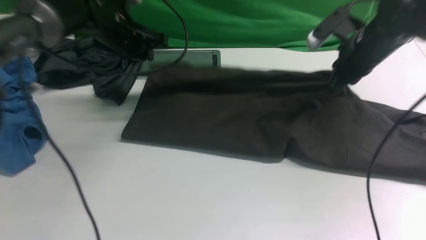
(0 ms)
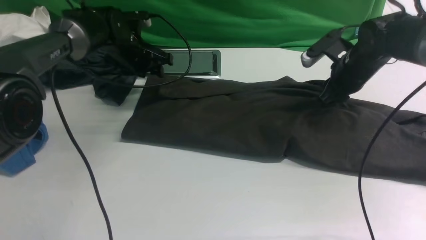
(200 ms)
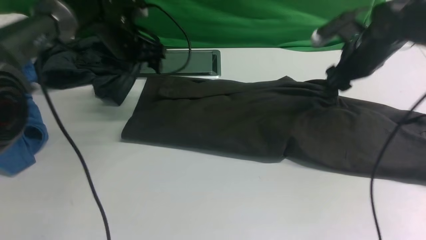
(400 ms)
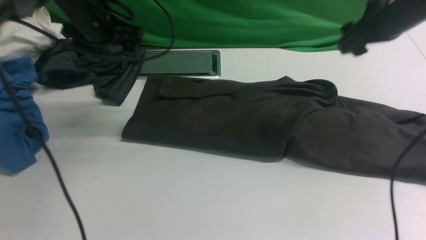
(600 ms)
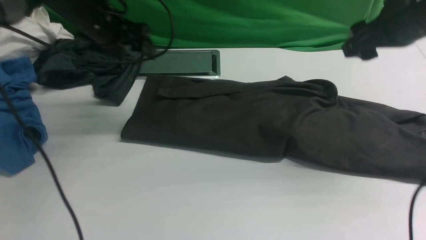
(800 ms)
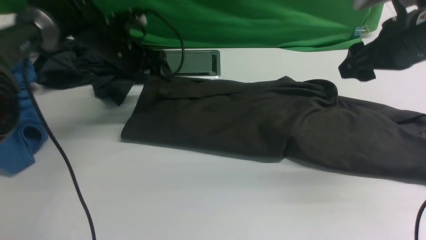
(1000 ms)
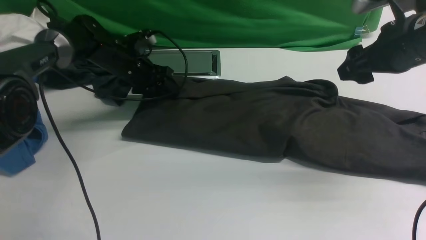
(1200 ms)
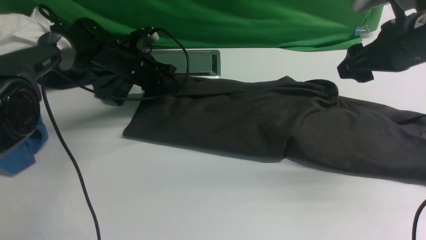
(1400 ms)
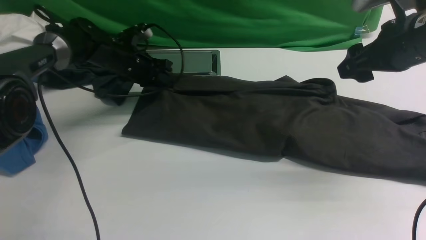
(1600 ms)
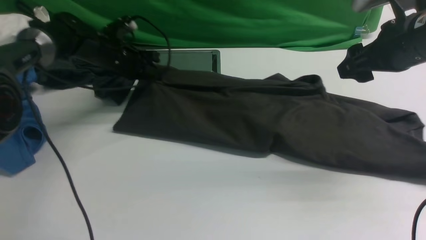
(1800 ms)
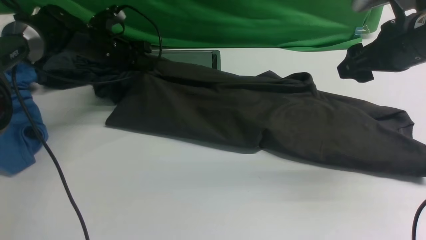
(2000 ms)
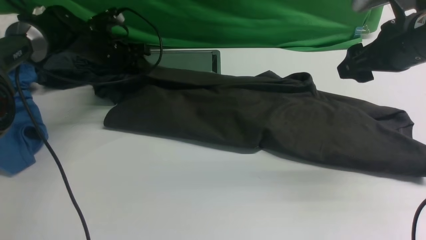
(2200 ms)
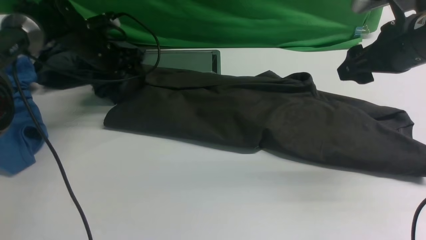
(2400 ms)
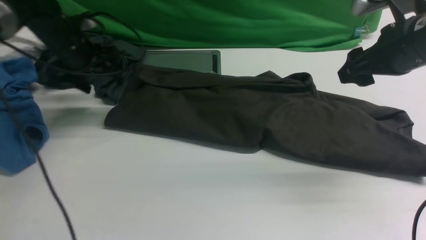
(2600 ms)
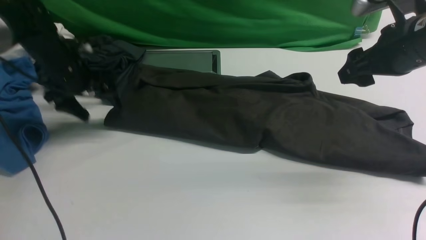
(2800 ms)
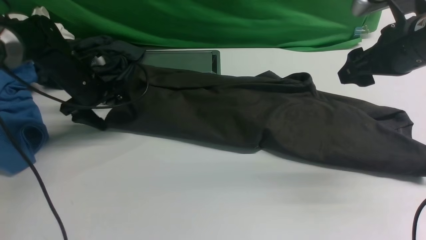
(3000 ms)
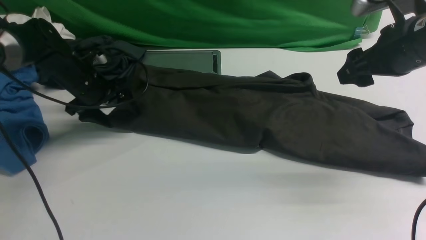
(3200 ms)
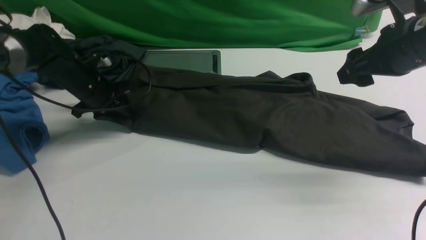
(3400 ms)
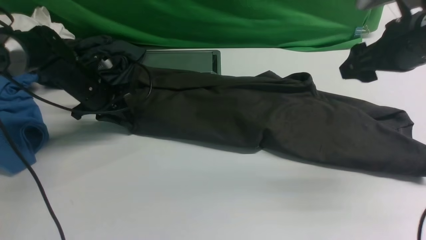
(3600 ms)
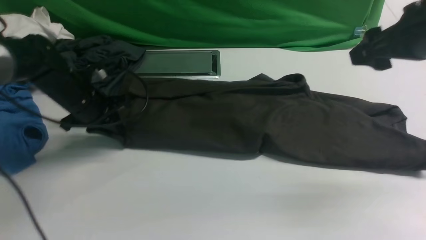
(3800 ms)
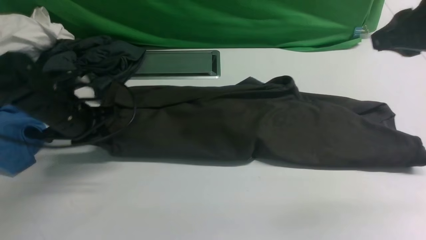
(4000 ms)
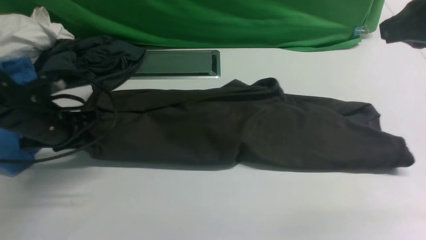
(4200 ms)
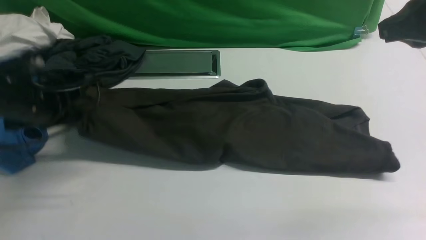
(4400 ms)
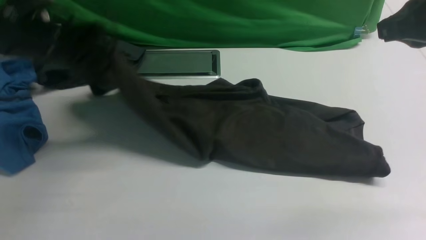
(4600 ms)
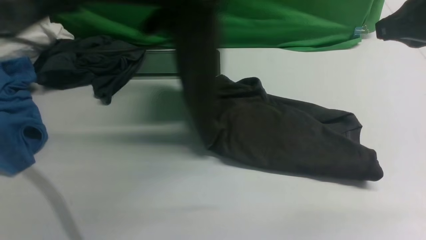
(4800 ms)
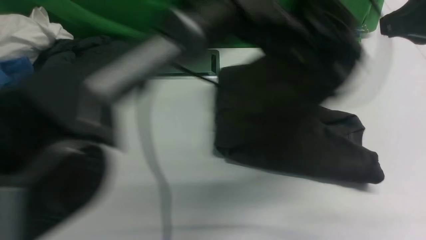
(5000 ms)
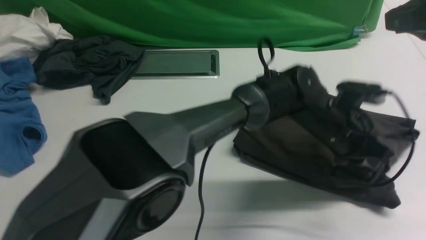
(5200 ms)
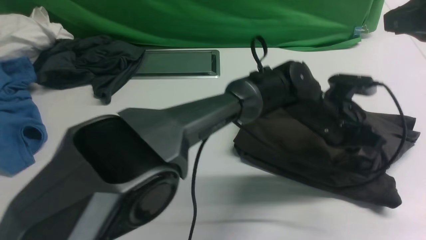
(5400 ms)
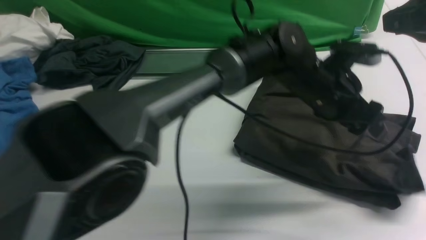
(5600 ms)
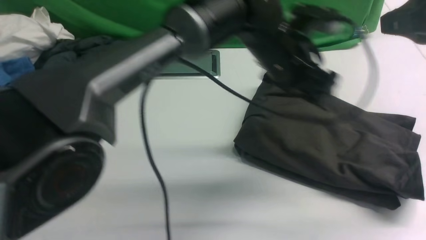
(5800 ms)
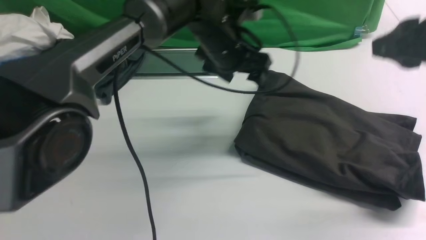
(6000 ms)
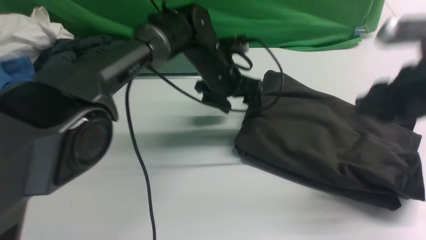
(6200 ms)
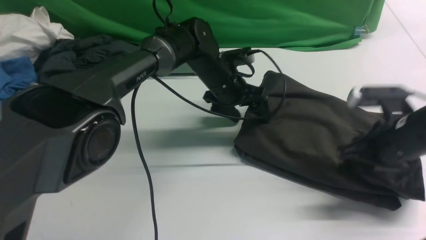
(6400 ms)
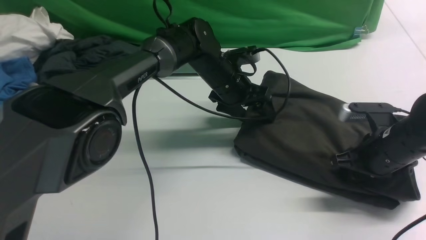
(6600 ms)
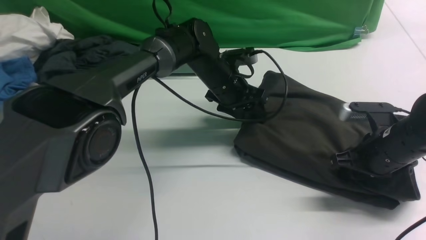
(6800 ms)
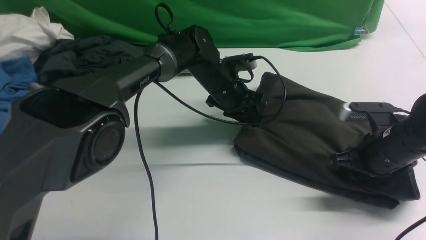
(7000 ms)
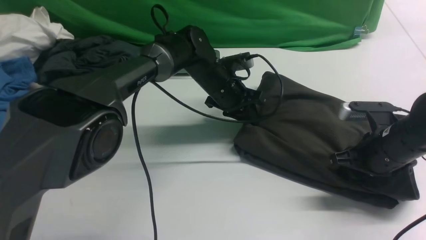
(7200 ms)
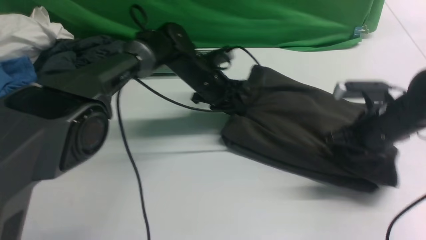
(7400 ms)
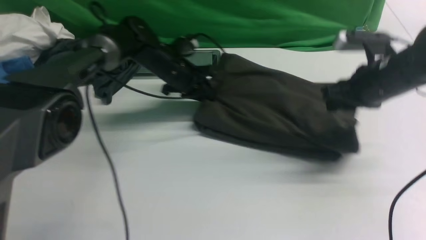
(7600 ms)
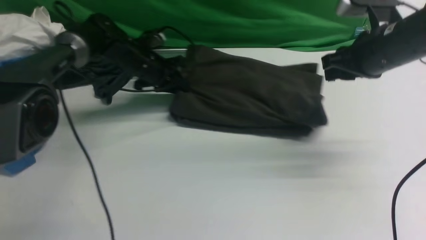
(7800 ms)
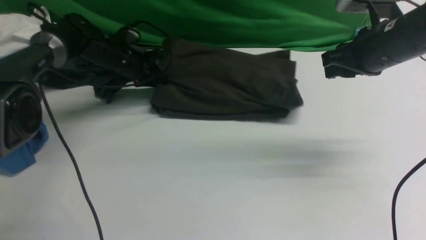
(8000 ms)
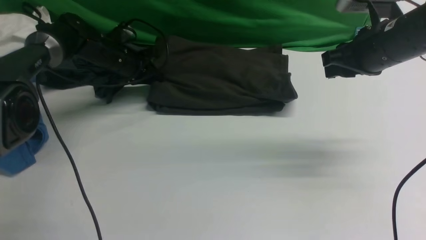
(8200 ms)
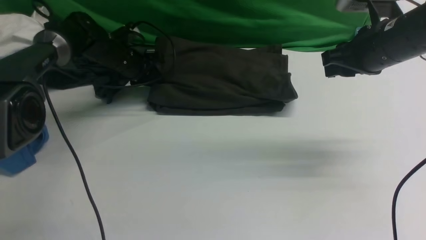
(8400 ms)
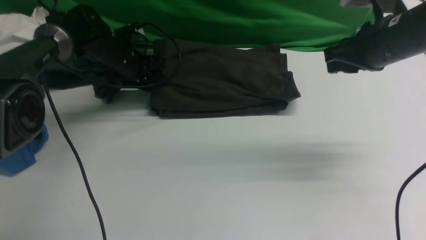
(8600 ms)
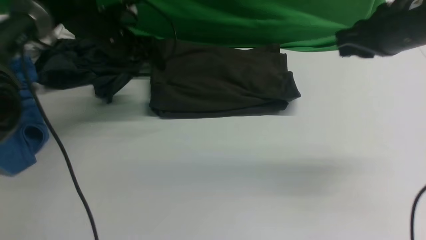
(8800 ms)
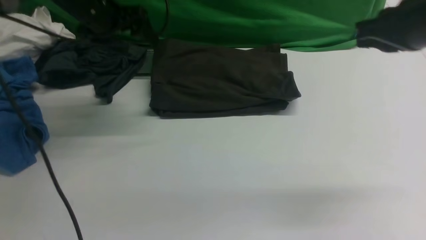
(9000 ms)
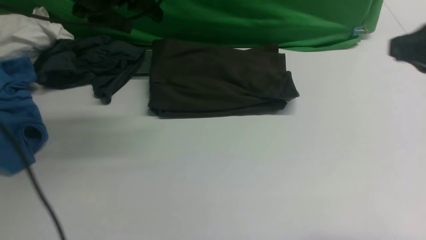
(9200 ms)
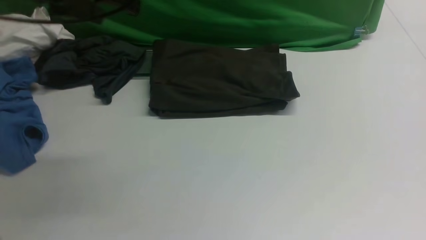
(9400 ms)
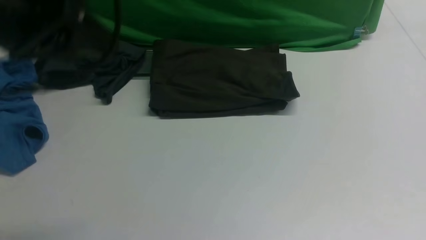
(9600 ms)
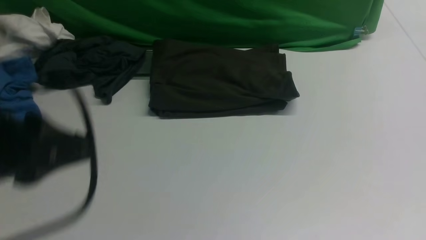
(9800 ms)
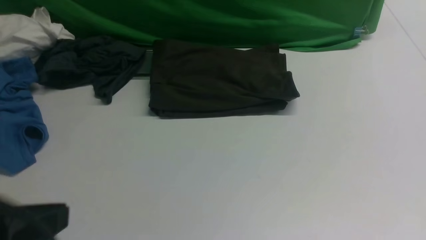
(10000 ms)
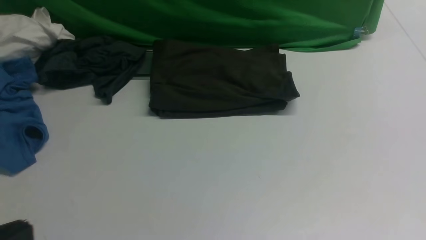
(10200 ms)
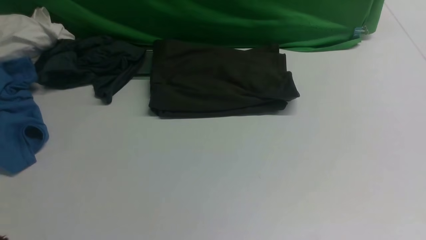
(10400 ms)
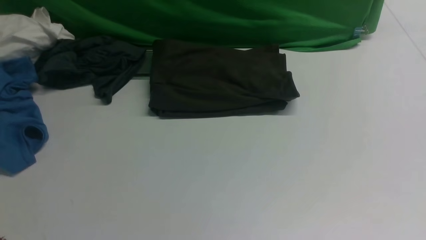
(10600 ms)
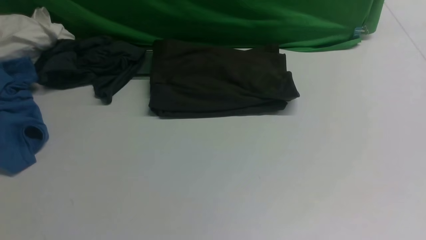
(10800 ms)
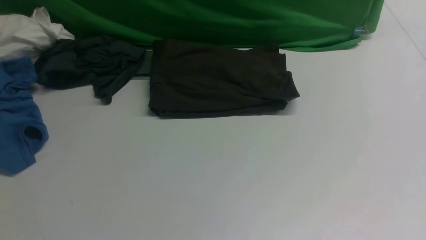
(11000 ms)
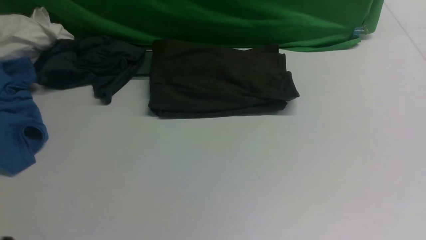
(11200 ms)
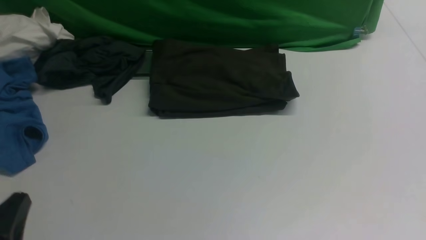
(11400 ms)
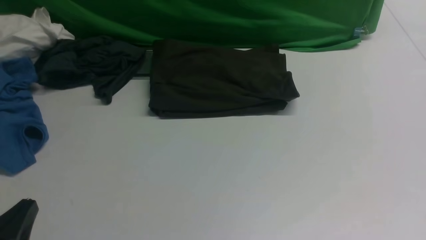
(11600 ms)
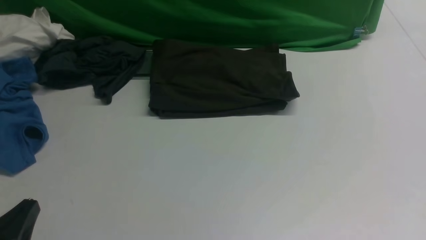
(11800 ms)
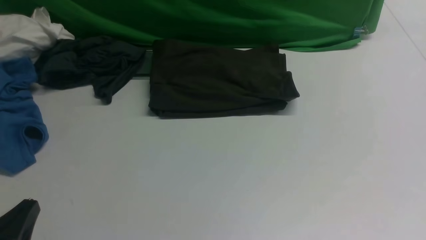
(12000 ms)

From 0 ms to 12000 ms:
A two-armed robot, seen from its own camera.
Step, from 600 ms to 4200 ms: Hold the left edge of the fabric with your left arm.
Step, from 4400 ms to 5800 ms: Drag the left edge of the fabric to the left with your left arm and fold it to the right edge.
From 0 ms to 1600 ms: The right gripper moves backward and upward, approximately 10 cm, and opens; the left gripper goes about 10 cm downward, and opens, then closes once more.
From 1600 ms to 3000 ms: The left gripper moves backward and to the left, roughly 10 cm, and opens up.
From 3000 ms to 4400 ms: The left gripper heads backward and upward, covering approximately 10 cm, and closes its fingers. The right gripper shifts some 10 cm upward and backward, and closes up.
From 4400 ms to 6000 ms: The right gripper opens its fingers. The left gripper goes approximately 30 cm to the right, and opens.
From 6000 ms to 7600 ms: The left gripper shifts about 15 cm to the left, downward and forward, and closes its fingers. The right gripper heads downward and forward, covering about 15 cm.
From 7600 ms to 9000 ms: The right gripper heads upward and backward, covering about 15 cm, and closes its fingers. The left gripper moves upward and to the left, approximately 20 cm, and opens its fingers.
From 9000 ms to 10400 ms: The right gripper travels backward by approximately 20 cm. The left gripper heads backward, covering roughly 50 cm, and closes its fingers.
From 10400 ms to 12000 ms: The left gripper heads downward and forward, covering approximately 15 cm.

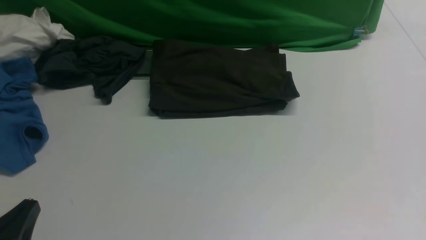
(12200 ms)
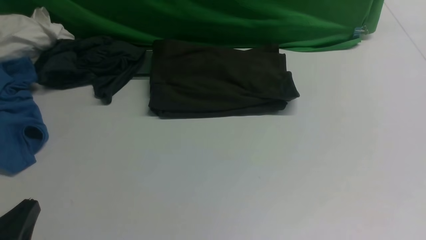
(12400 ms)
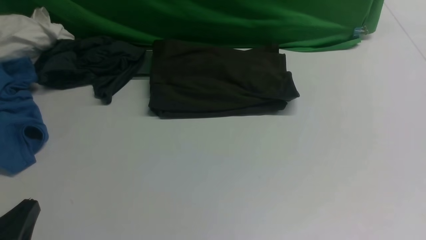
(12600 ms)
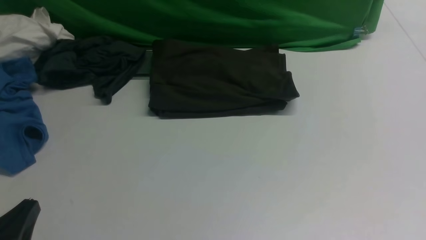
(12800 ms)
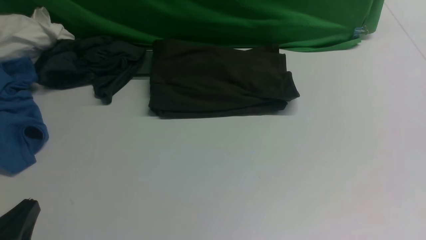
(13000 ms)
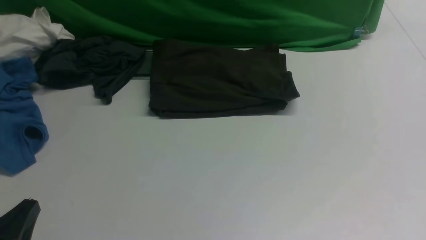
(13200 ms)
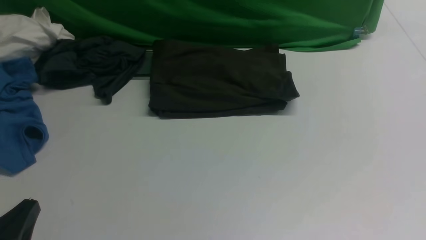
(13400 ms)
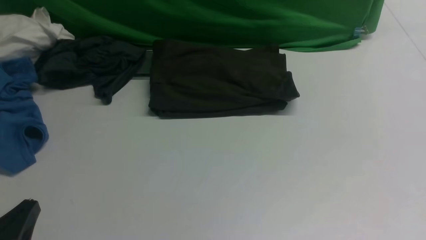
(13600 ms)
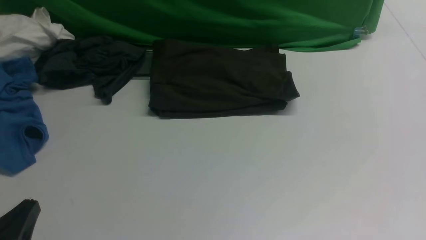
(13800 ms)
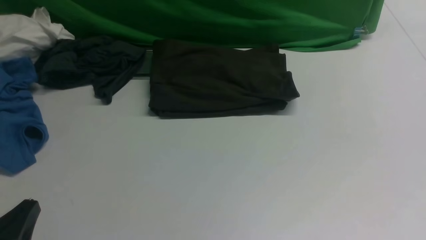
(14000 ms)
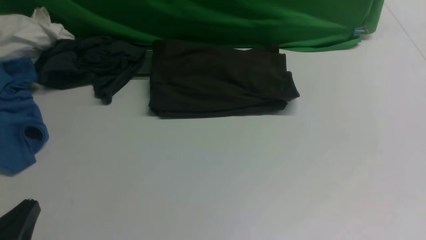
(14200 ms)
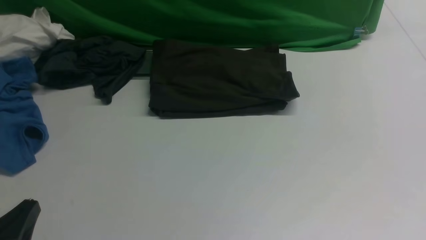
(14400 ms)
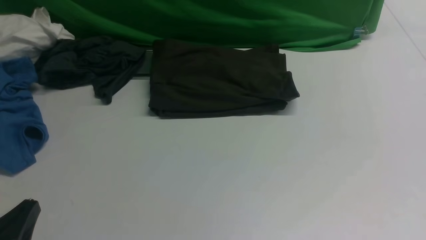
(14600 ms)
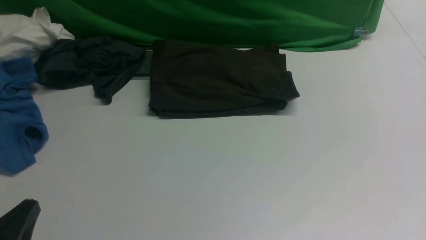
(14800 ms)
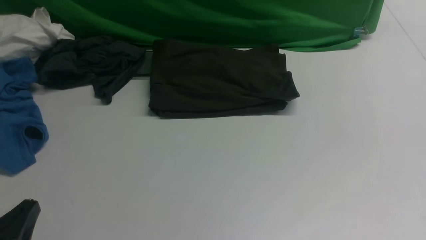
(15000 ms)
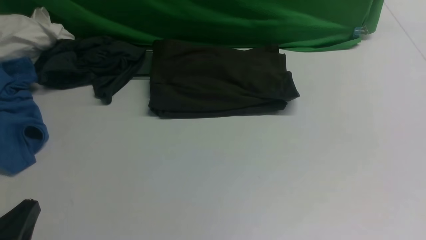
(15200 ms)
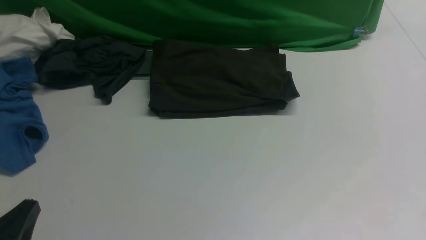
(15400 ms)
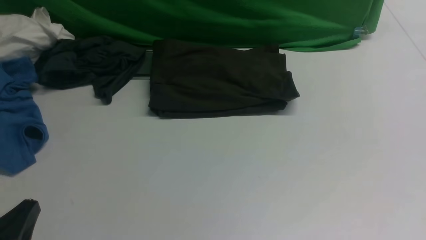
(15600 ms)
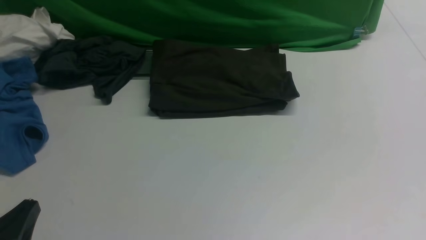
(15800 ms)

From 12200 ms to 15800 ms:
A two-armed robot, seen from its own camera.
From 14000 ms to 15800 ms: Both grippers stay put.
